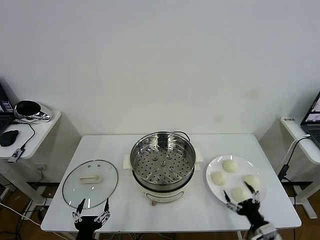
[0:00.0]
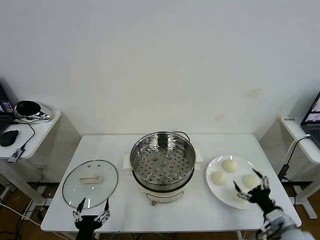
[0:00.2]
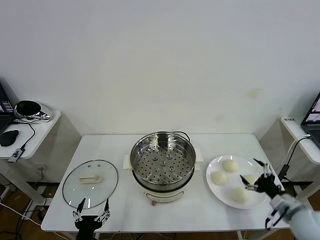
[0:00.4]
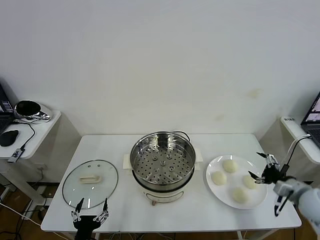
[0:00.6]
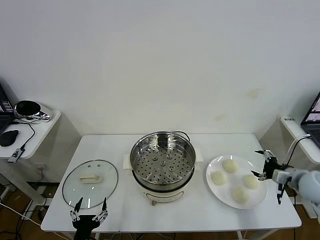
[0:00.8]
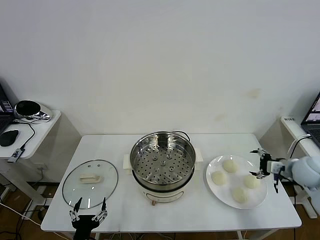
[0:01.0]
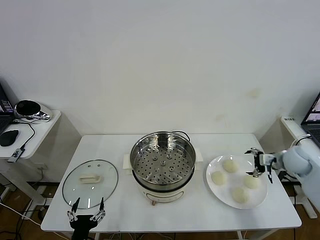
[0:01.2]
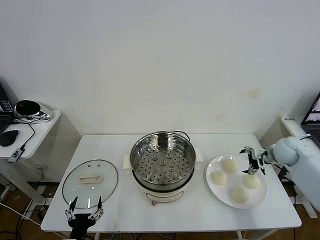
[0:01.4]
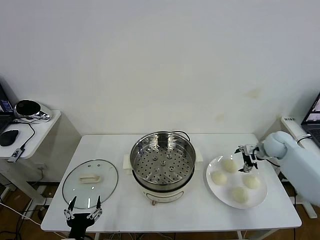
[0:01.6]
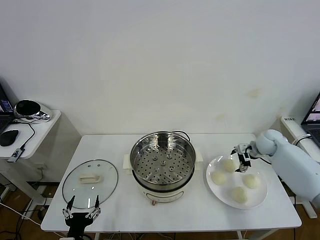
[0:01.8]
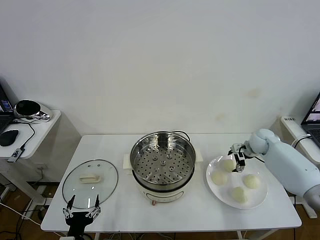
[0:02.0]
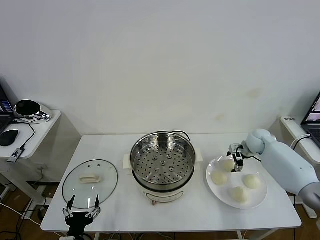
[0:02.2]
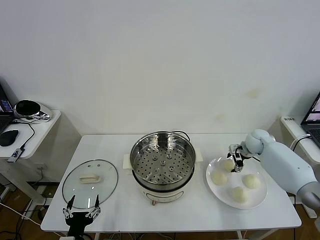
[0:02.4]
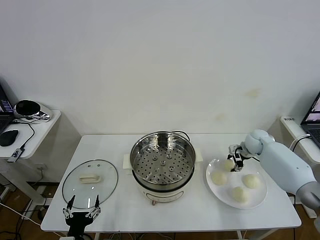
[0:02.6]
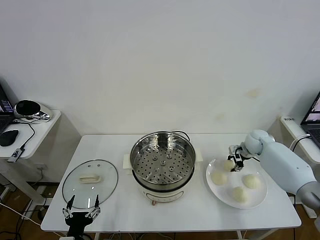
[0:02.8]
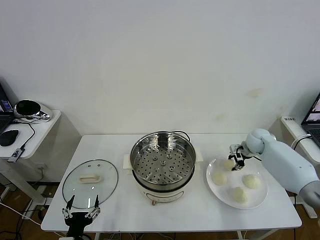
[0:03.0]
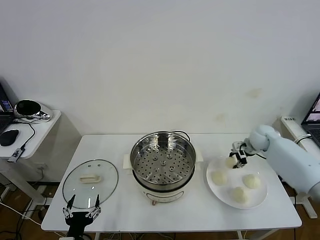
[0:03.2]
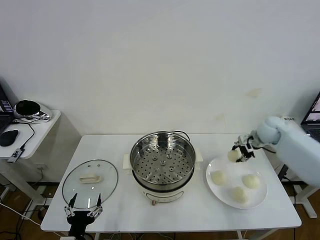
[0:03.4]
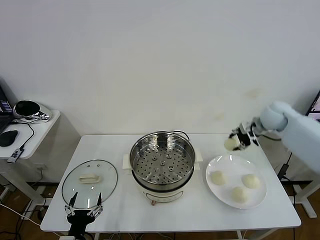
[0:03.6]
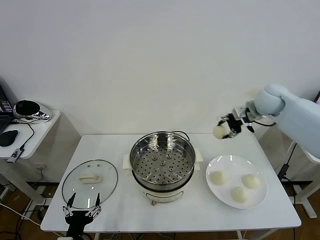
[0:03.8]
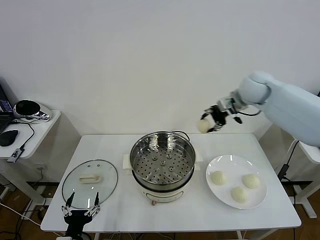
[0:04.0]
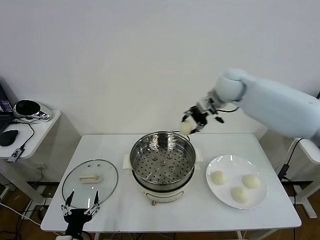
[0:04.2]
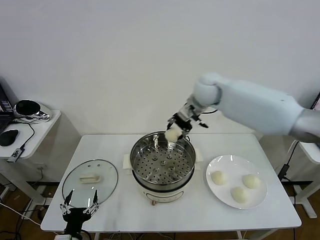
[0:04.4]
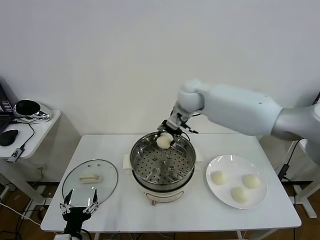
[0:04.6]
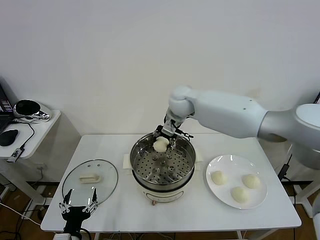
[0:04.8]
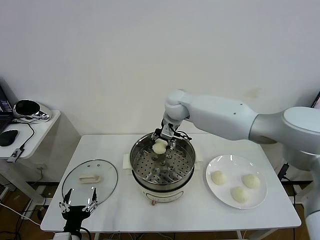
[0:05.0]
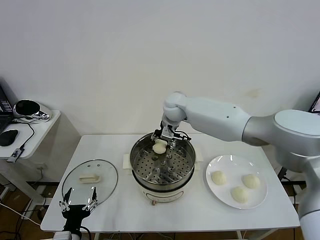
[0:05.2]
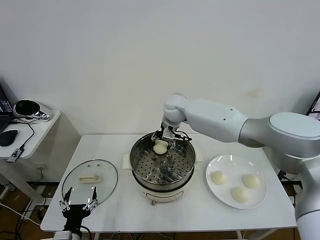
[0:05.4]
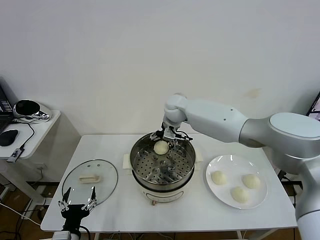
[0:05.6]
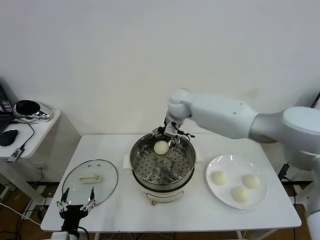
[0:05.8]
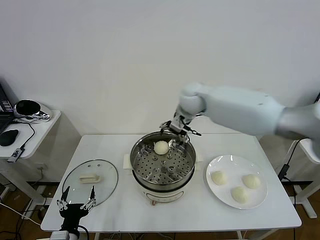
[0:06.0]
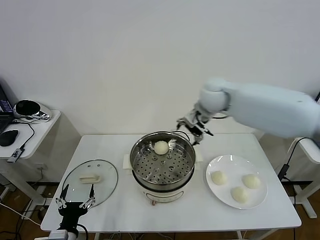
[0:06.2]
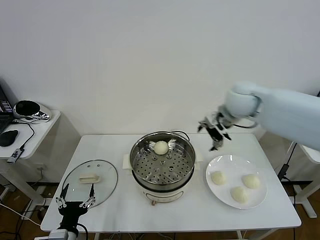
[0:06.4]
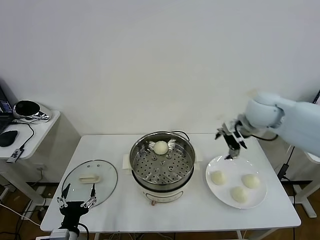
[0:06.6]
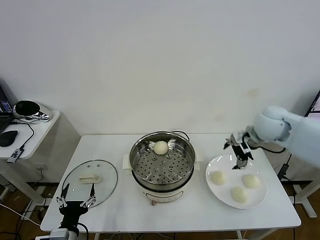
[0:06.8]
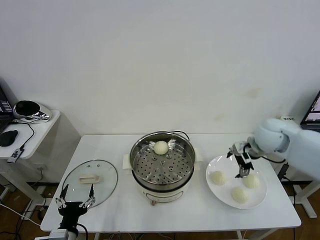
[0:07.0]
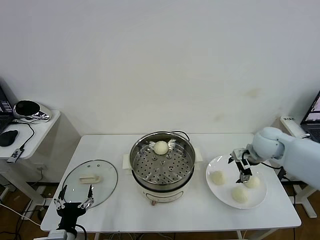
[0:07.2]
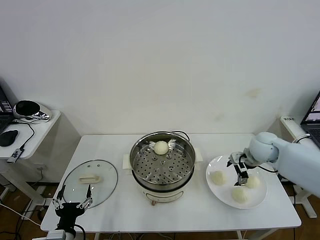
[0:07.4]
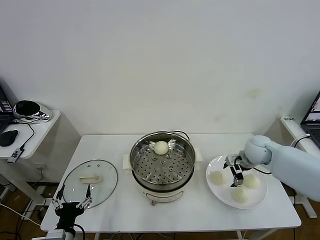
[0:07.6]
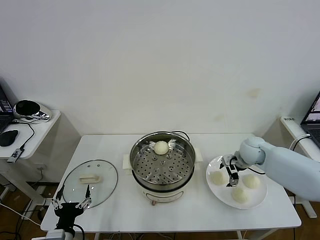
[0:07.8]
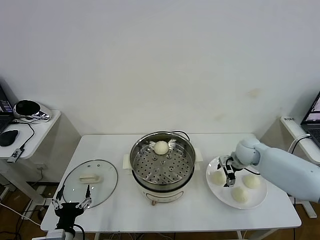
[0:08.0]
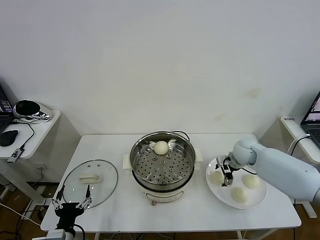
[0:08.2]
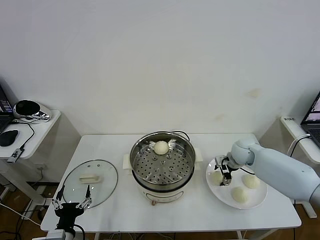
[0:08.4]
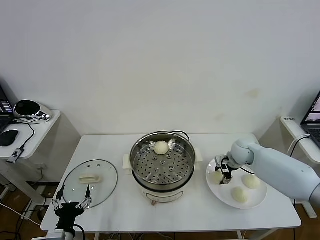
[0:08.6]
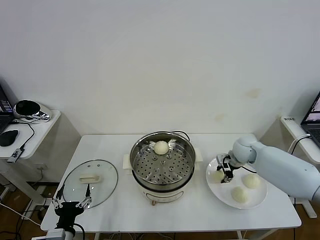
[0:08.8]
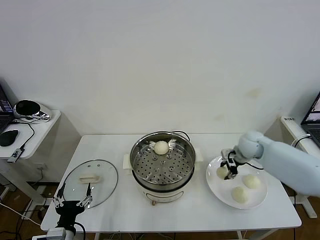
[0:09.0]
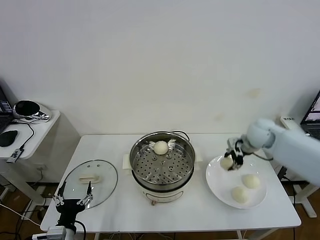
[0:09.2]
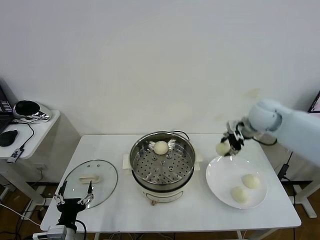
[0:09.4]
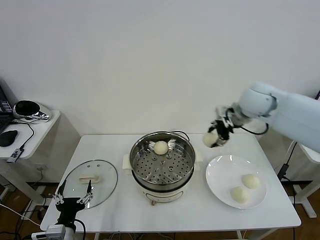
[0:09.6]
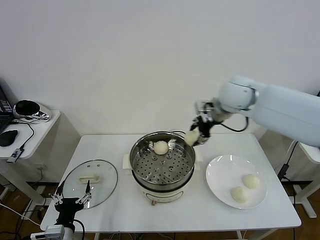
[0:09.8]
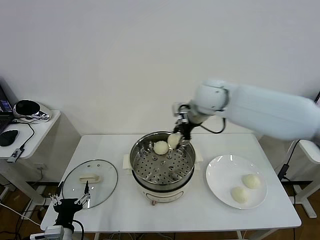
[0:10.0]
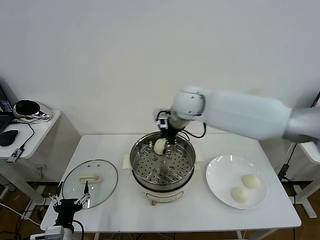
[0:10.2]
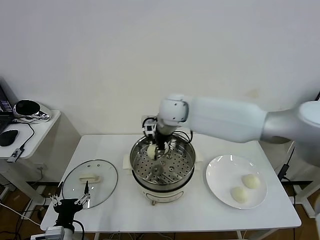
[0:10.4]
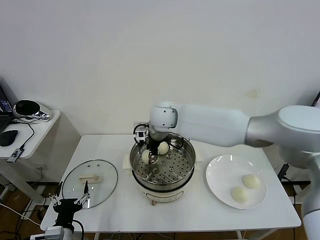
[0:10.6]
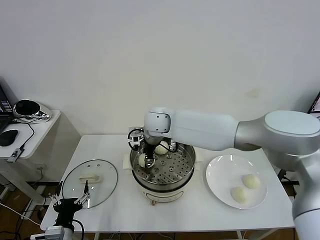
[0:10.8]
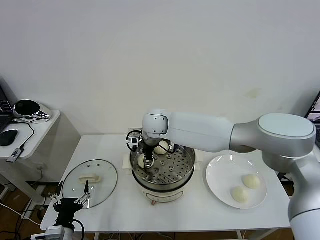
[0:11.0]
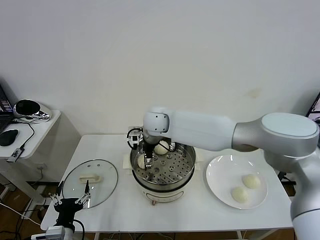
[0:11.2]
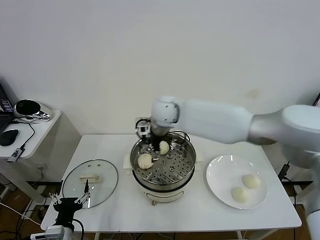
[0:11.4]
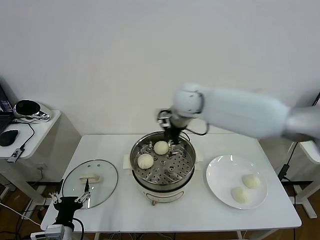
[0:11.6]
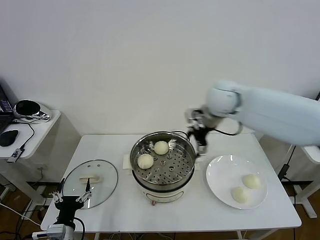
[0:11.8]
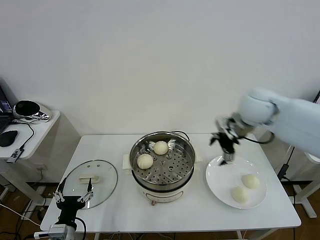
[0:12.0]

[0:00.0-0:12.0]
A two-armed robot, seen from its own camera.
Task of the whole recording: take steamed baozi put them in steamer then cover it.
Step, 0:00.0 to 0:02.8: Grasp the baozi in the plate with right gripper.
Step, 0:03.0 to 0:05.6: Place the baozi on the steamer with right gripper.
Step, 0:05.8 to 0:08.6: Grasp the baozi in the plate with right gripper.
Step, 0:08.8 to 0:11.2: Place the baozi on the steamer with right gripper.
0:01.6 to 0:03.0: The right gripper closes its fingers.
0:03.0 to 0:04.4: The right gripper travels to the left and upward by approximately 35 cm.
0:04.4 to 0:06.0: The right gripper travels to the left and back again, some 5 cm each way, and opens.
0:06.0 to 0:07.6: The right gripper heads to the right and downward, covering some 25 cm.
0:07.6 to 0:09.0: The right gripper closes up.
0:09.0 to 0:10.4: The right gripper travels to the left by roughly 30 cm.
0:10.4 to 0:12.0: The right gripper is displaced to the right by approximately 25 cm, and opens its fingers.

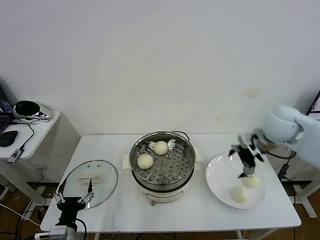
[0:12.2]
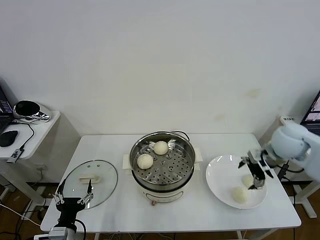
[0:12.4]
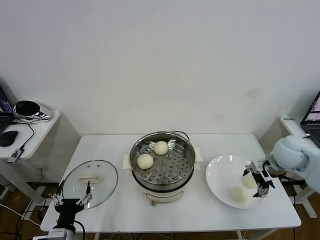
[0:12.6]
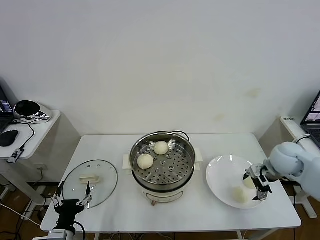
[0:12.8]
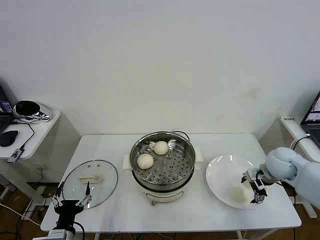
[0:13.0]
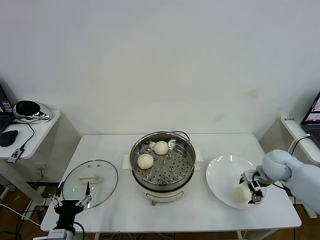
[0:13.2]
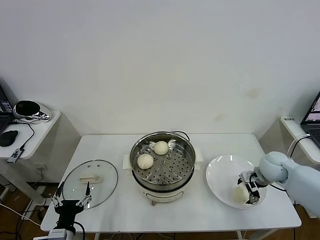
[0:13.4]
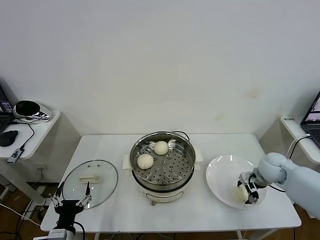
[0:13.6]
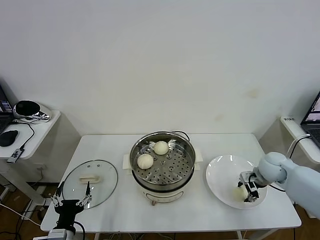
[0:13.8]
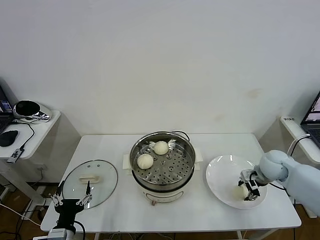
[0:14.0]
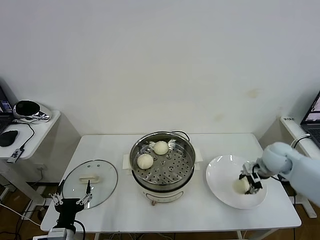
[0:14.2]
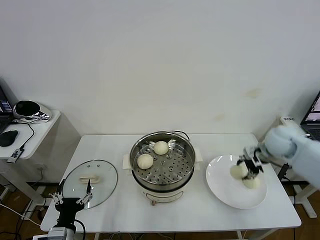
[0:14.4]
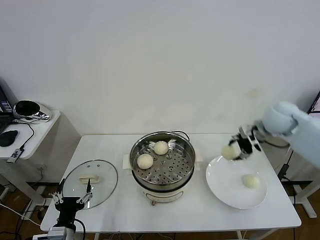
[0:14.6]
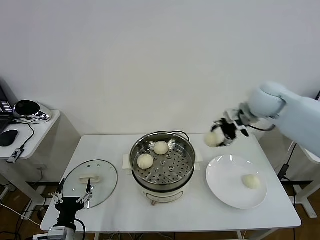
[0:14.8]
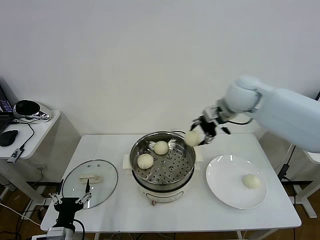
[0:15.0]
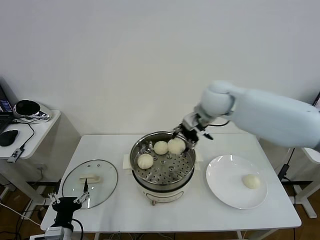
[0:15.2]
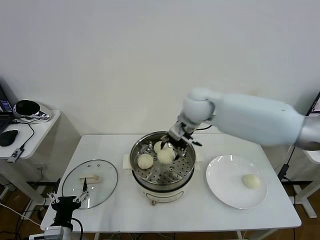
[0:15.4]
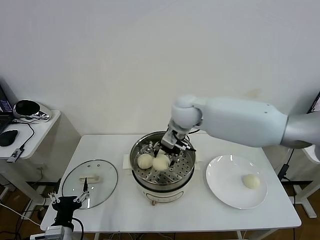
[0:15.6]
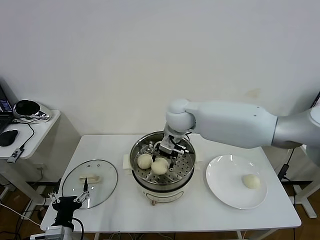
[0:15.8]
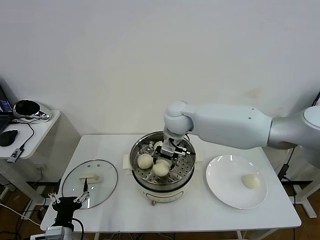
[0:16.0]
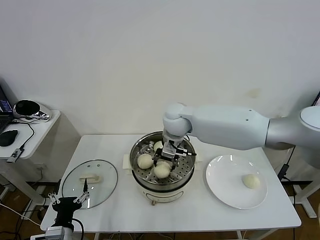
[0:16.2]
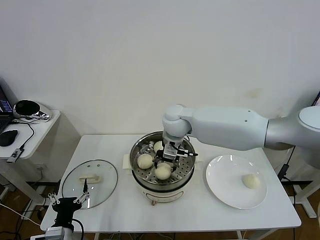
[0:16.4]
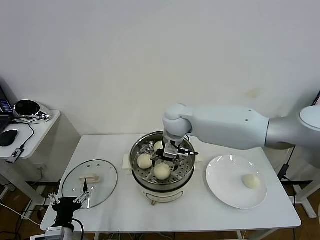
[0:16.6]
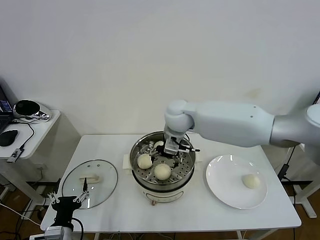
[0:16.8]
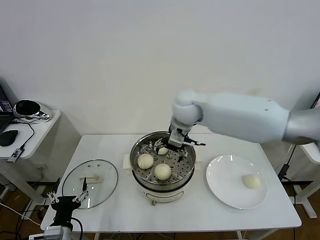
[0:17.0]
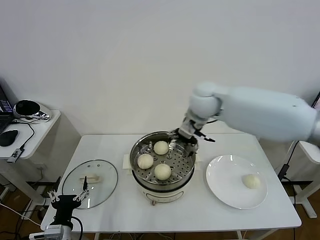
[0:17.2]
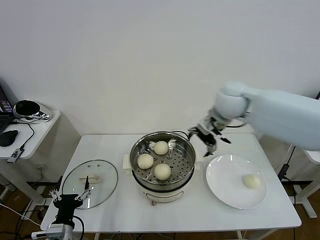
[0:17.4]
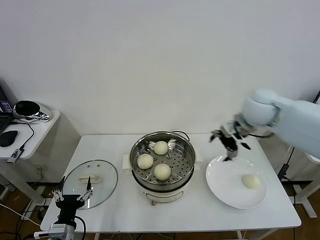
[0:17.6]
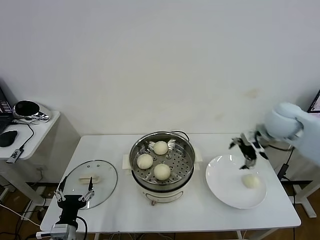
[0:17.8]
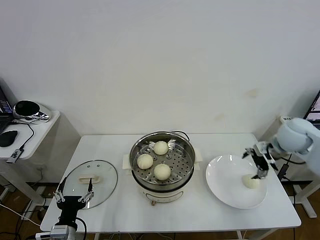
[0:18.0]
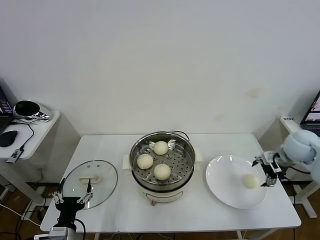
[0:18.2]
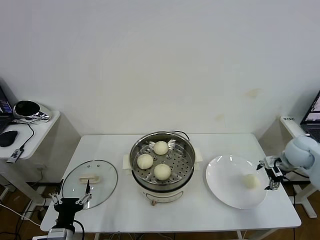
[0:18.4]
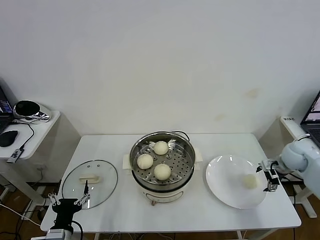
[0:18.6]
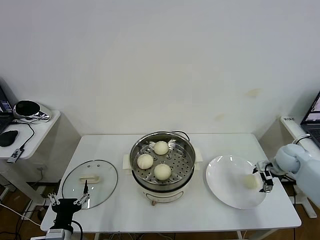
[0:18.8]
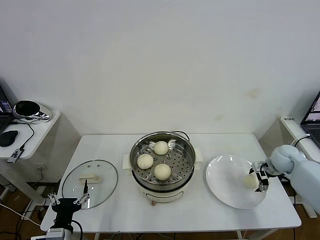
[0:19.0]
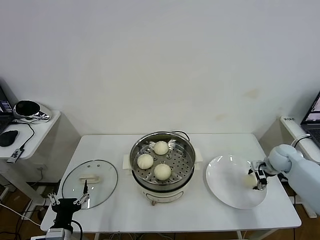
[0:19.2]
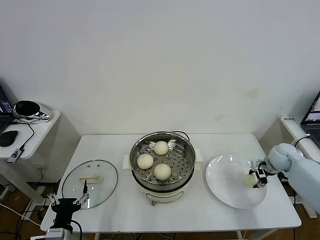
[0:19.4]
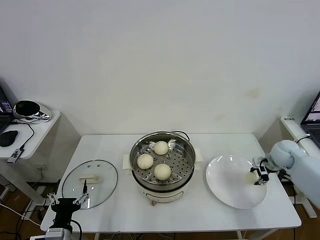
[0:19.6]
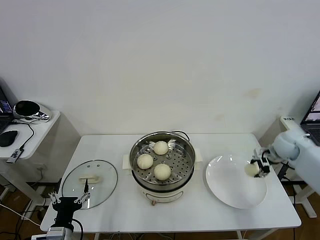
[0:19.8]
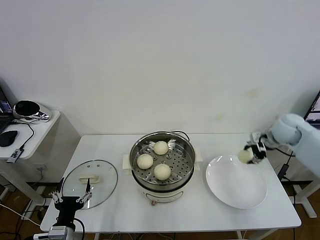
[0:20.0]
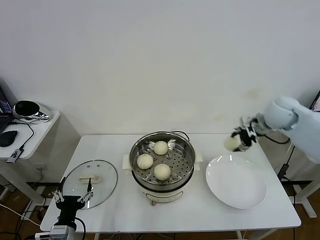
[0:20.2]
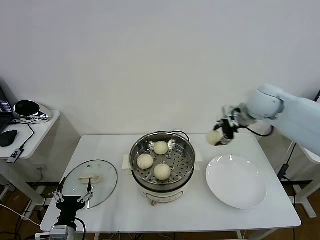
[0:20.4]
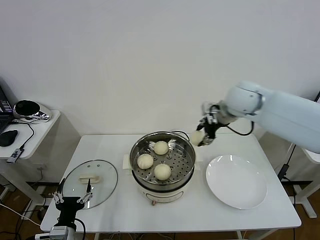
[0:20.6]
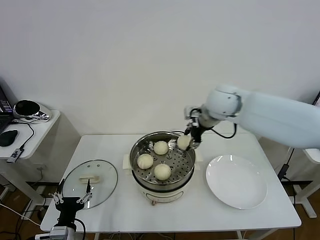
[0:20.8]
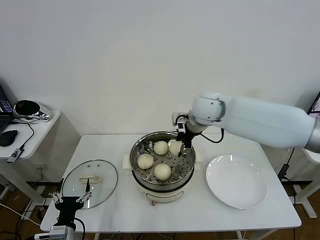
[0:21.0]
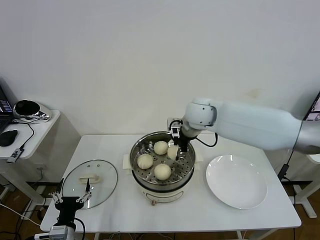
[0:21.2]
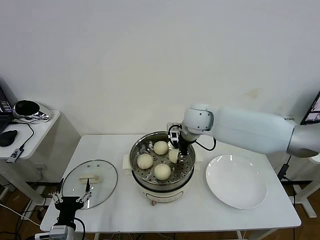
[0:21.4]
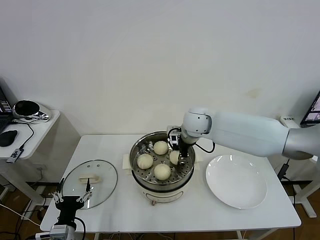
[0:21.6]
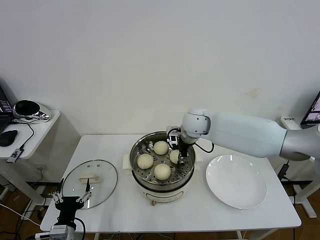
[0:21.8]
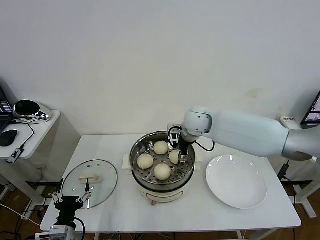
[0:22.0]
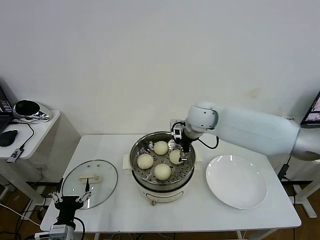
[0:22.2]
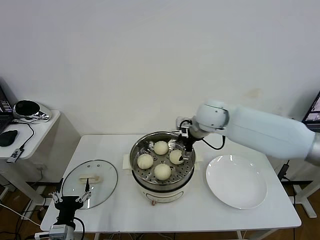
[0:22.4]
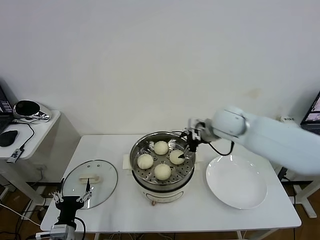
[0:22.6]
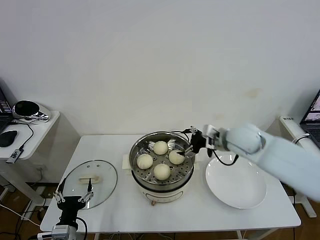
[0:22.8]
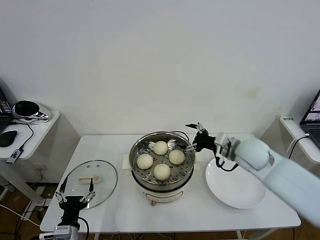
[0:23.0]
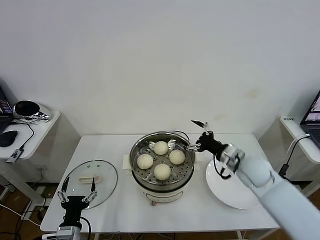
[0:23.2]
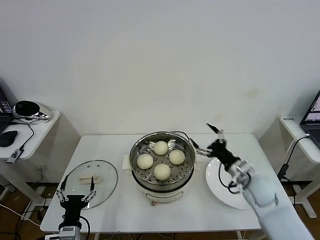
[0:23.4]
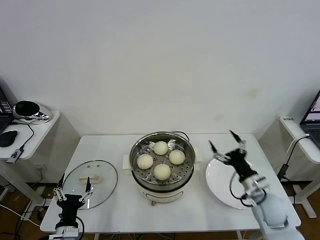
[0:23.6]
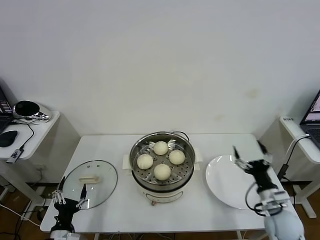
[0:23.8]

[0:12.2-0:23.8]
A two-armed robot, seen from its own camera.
Task of the whole recording: take steamed baozi put them in steamer then cover it.
Step, 0:12.2 to 0:13.8: Grasp the baozi in the plate with right gripper.
Step, 0:14.0 to 0:16.8: Place the baozi on the steamer with right gripper.
Step, 0:17.0 to 0:19.6: Grasp the baozi in the plate with right gripper.
Step, 0:19.8 to 0:22.2: Place the baozi on the steamer with right gripper.
0:12.2 to 0:13.6: The right gripper is displaced downward by about 15 cm, and closes its fingers.
0:13.6 to 0:15.0: The right gripper shifts approximately 30 cm upward and to the left, and closes its fingers.
0:15.0 to 0:16.6: The right gripper goes approximately 15 cm to the left and downward, and opens its fingers.
0:16.6 to 0:18.0: The right gripper heads to the right, covering about 35 cm.
0:18.0 to 0:19.4: The right gripper is displaced downward by approximately 15 cm, and closes its fingers.
0:19.4 to 0:21.0: The right gripper shifts some 40 cm to the left and upward.
0:21.0 to 0:22.4: The right gripper opens.
0:22.4 to 0:23.8: The left gripper ends up roughly 5 cm from where it was; the right gripper heads backward, downward and to the right, covering approximately 40 cm.
